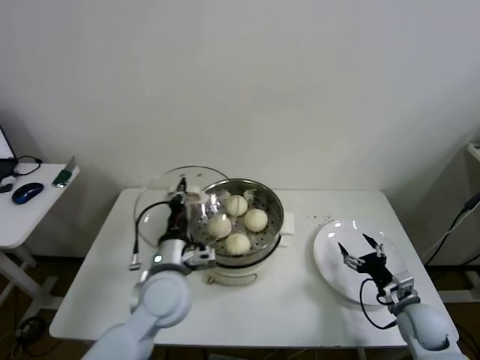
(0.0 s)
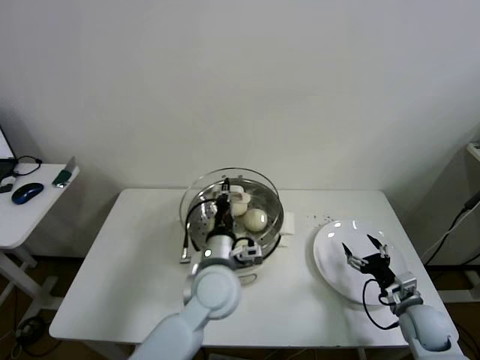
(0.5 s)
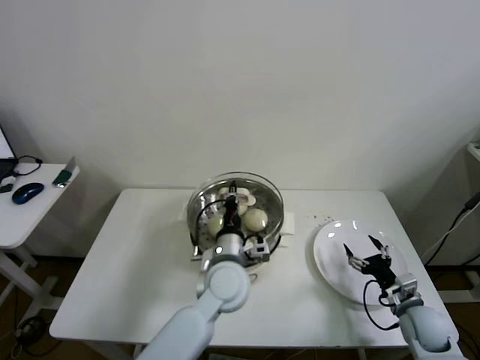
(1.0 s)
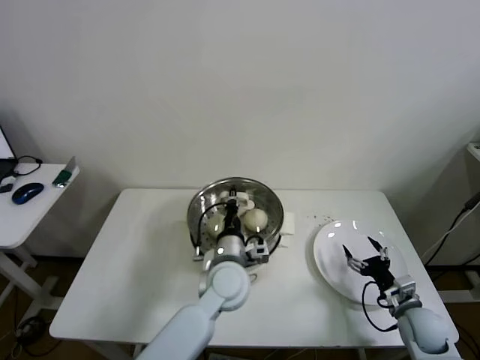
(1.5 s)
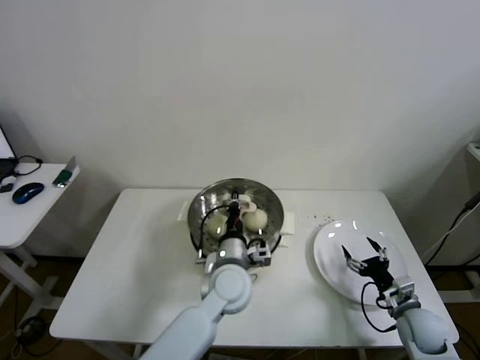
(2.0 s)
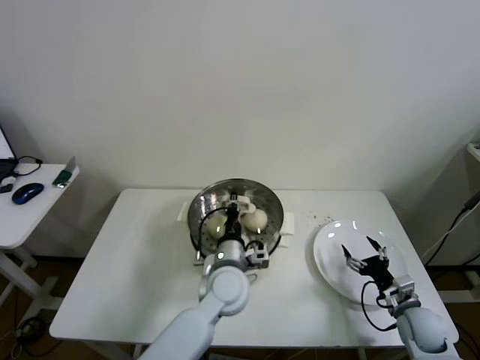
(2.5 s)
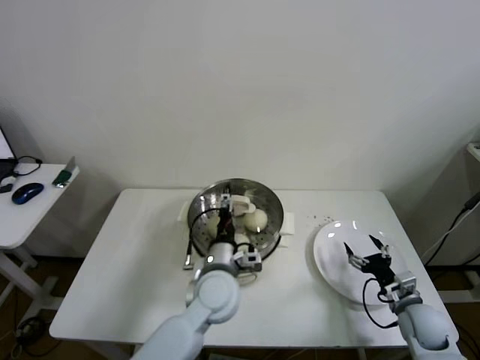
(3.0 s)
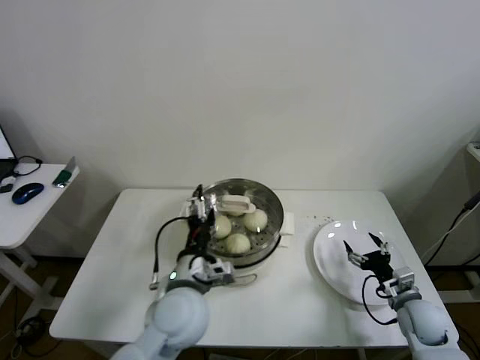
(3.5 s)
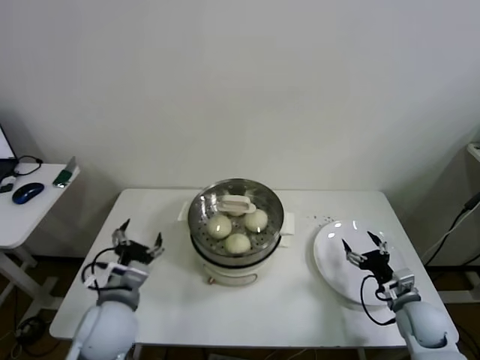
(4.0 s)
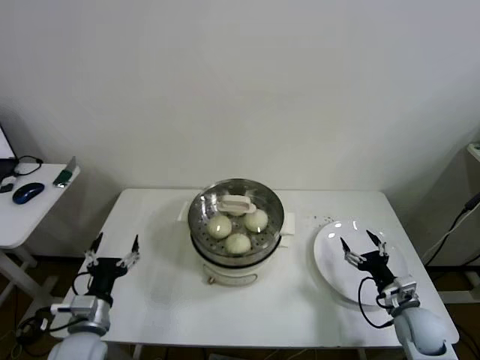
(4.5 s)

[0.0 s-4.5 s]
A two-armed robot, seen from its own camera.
Step, 0.0 to 2.5 s: Place the pot lid on the steamer with left gripper.
0.0 to 2.0 s: The left gripper heads to the right and downward, covering about 15 cm.
2.0 to 4.5 s: The left gripper is displaced to the left and backward by some 30 cm, and opens.
